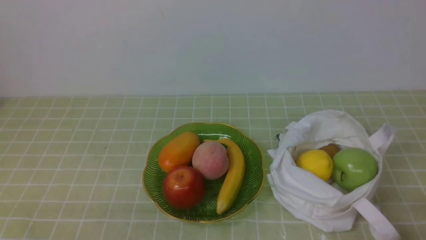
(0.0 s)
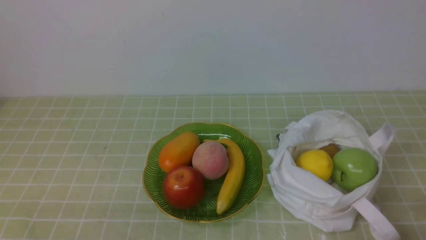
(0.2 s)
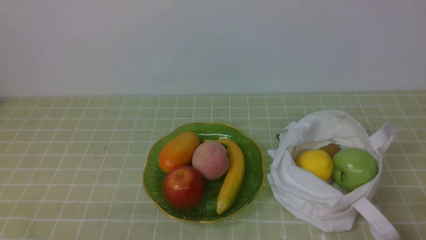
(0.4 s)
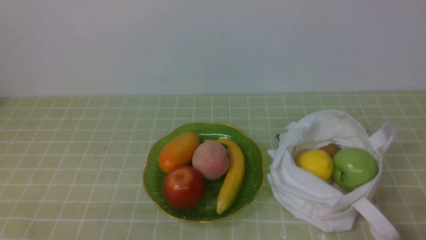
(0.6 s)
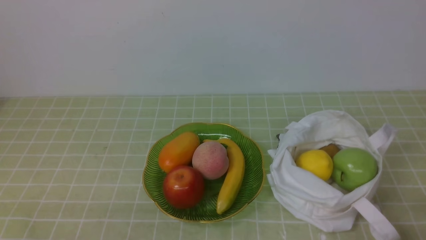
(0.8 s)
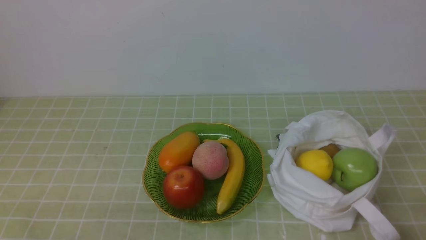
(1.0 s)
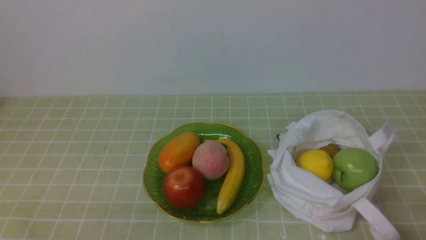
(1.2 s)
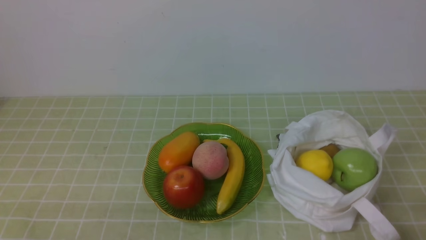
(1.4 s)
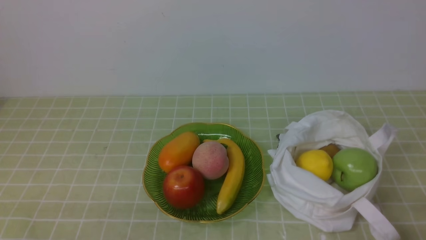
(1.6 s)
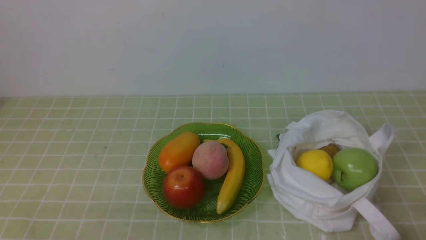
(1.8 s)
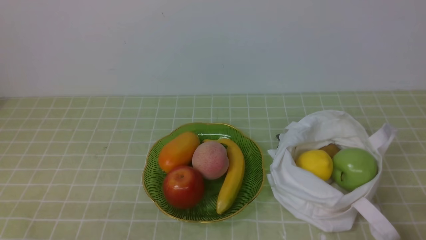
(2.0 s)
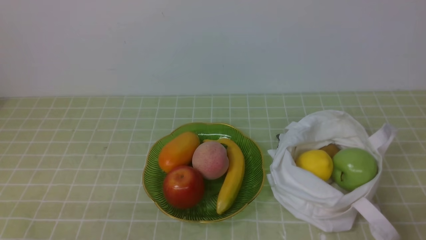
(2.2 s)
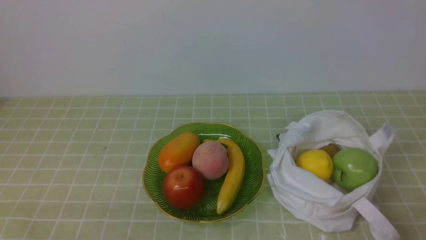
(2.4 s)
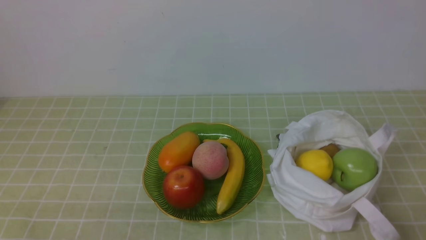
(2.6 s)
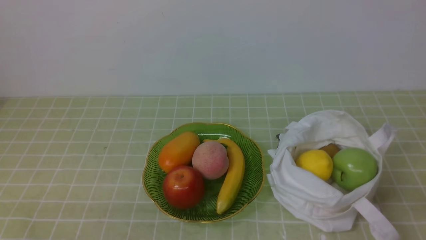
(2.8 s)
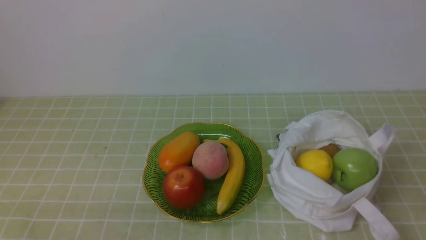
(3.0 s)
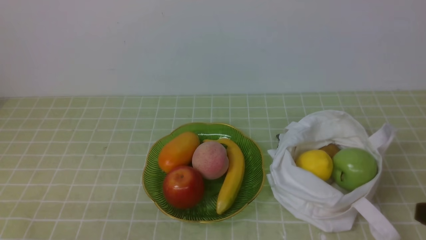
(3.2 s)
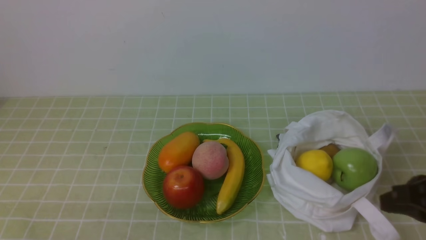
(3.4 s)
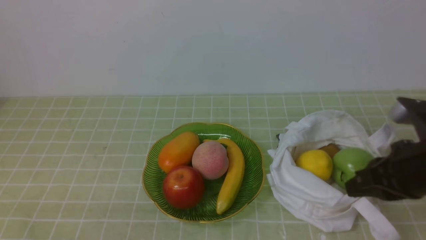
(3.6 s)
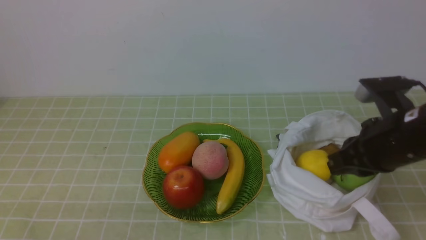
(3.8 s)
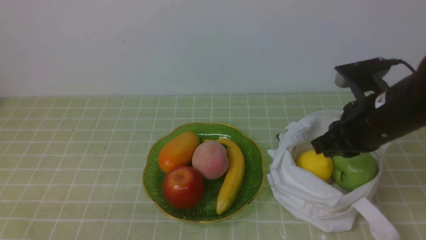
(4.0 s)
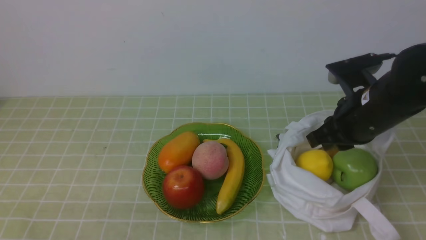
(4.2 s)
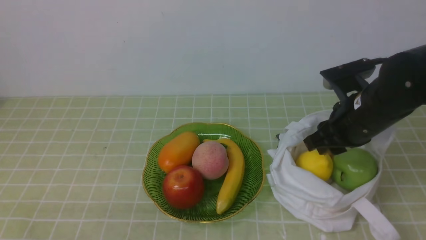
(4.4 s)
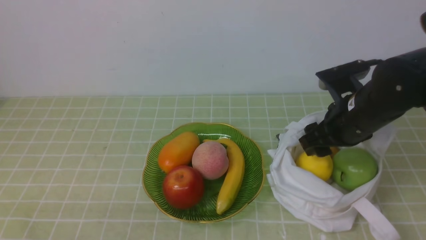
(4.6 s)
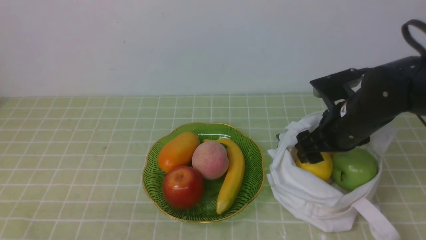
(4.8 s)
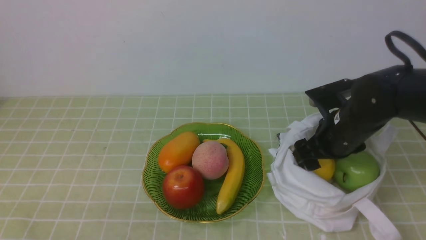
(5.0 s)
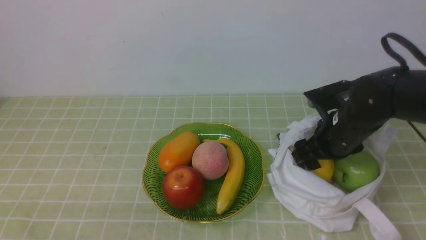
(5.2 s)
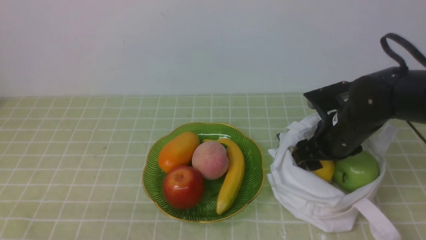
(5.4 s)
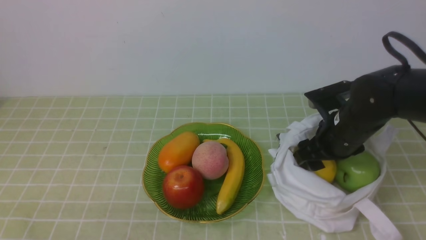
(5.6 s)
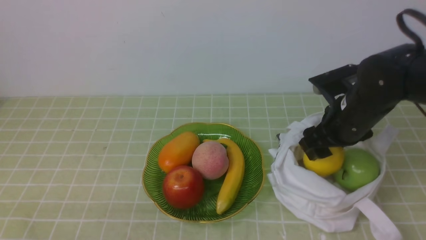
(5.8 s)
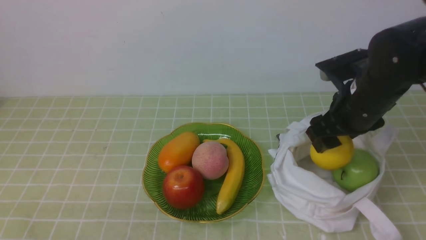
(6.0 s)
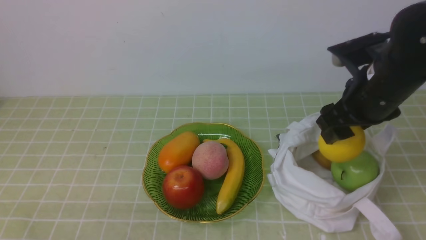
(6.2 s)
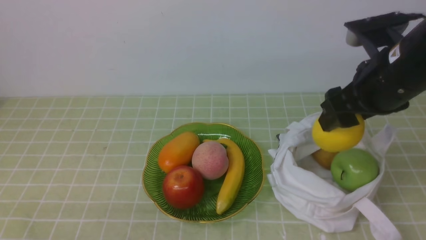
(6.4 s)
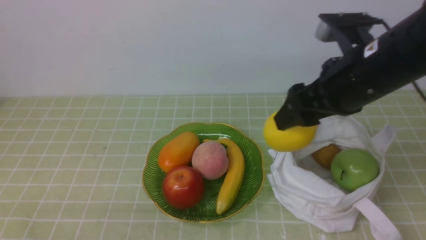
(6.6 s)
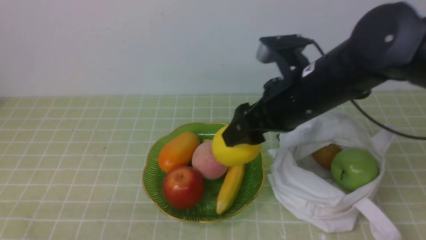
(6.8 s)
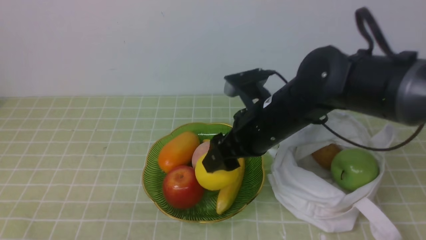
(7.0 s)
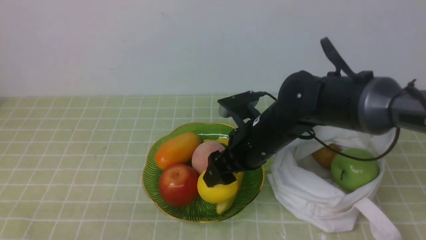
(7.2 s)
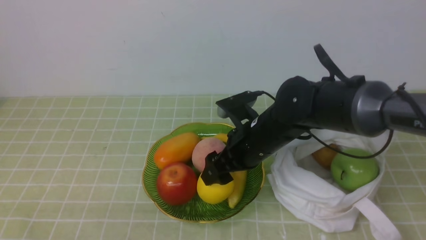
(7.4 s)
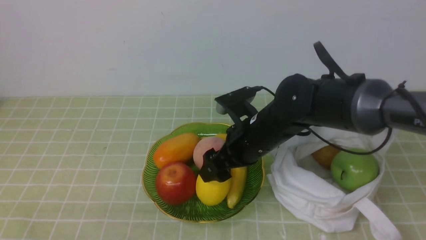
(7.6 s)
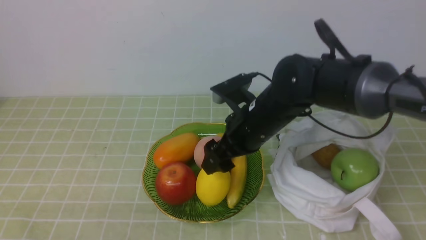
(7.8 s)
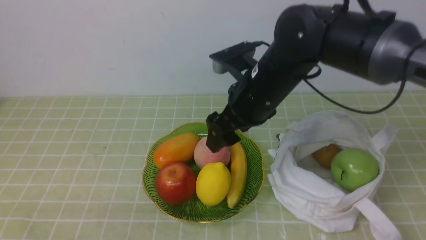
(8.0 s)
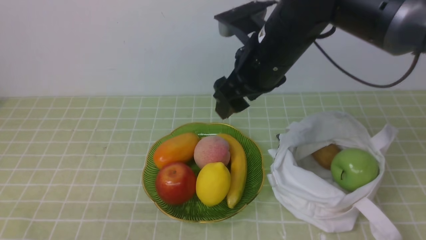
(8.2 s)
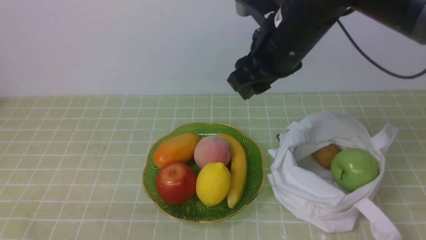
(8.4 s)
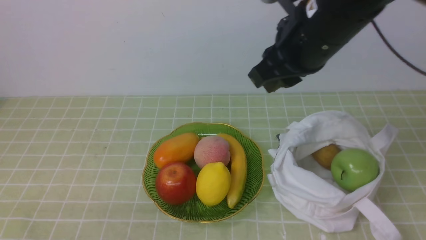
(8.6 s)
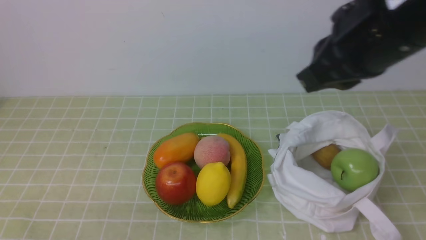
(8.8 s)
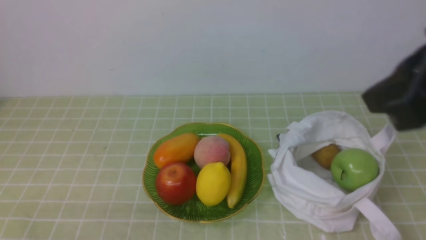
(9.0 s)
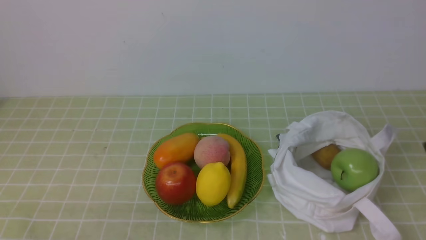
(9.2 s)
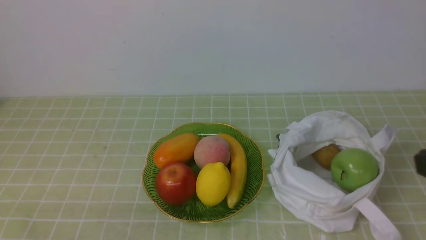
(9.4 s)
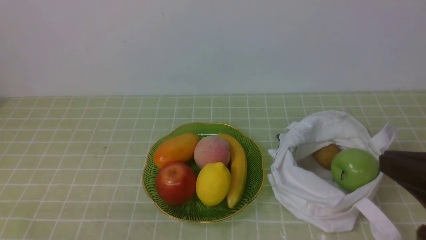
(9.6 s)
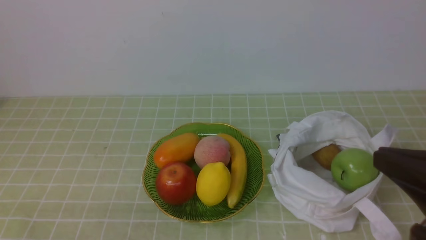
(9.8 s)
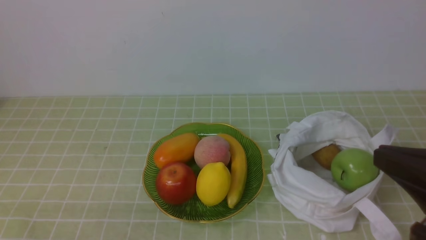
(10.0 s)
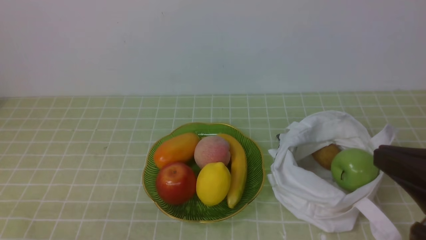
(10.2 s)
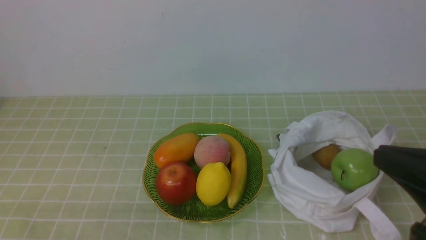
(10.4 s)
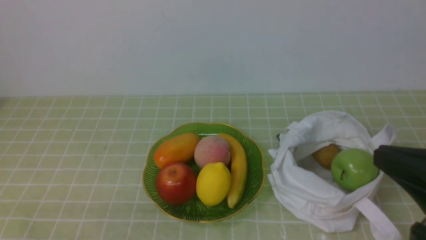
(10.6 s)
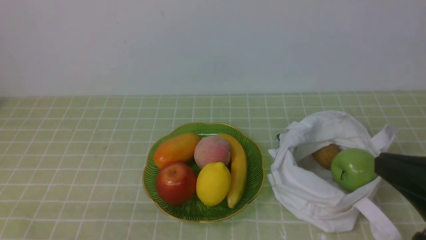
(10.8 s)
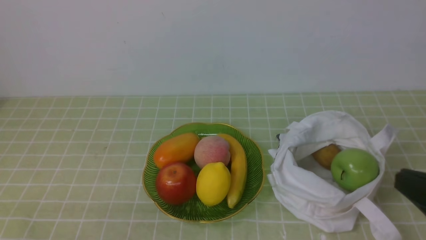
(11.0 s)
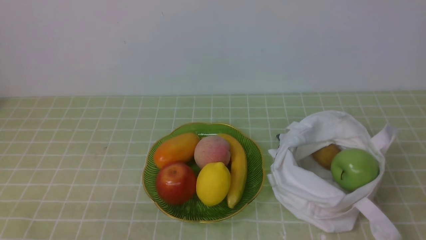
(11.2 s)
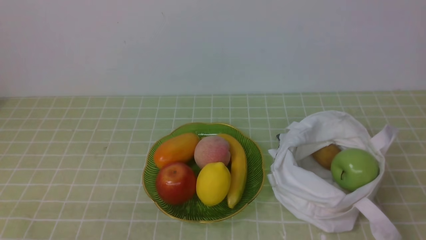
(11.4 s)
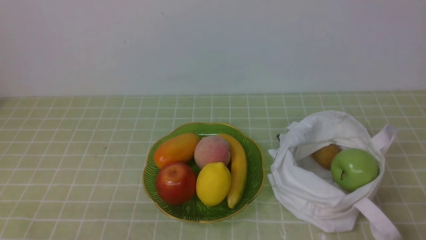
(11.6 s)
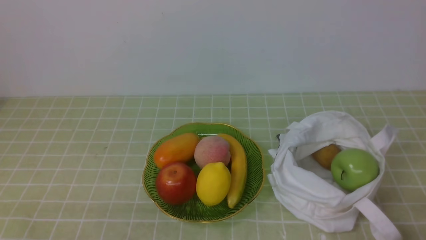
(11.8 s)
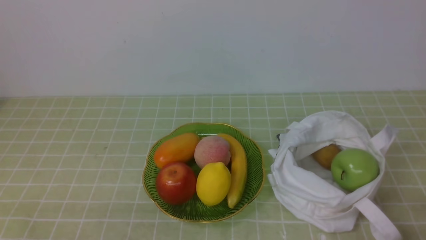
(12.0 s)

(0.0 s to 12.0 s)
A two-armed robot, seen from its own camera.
Step, 0.0 s - 5.6 s: use the right arm to grab a lemon from the bag.
Step, 5.8 s - 7.6 s: use the right arm to put the lemon into the empty plate on the left.
3.0 s - 4.4 s: The right gripper heads forward, covering roughly 25 cm.
4.4 s - 6.0 s: The right gripper opens.
6.0 s - 7.6 s: The right gripper moves to the left, roughly 15 cm.
7.6 s - 9.0 s: The right gripper is displaced upward, backward and to the right by some 30 cm, and closes.
9.0 s - 10.4 s: The right gripper travels downward, backward and to the right by about 15 cm.
10.4 s - 12.0 s: The right gripper is displaced downward and to the right by some 15 cm.

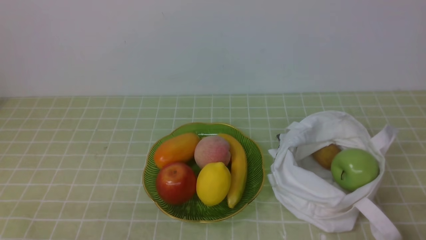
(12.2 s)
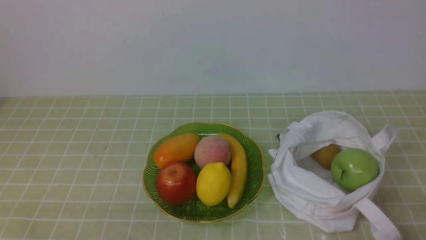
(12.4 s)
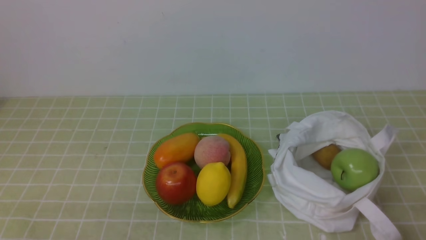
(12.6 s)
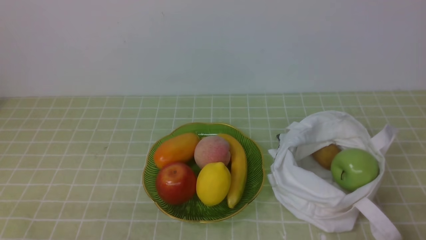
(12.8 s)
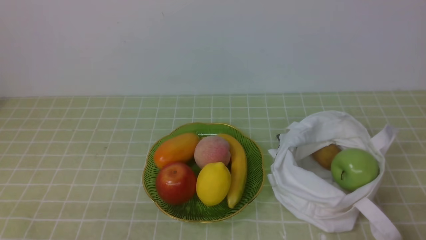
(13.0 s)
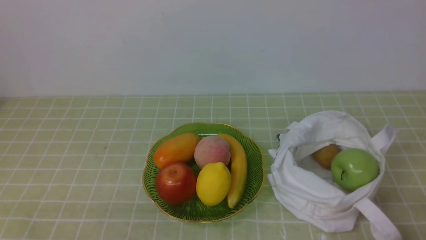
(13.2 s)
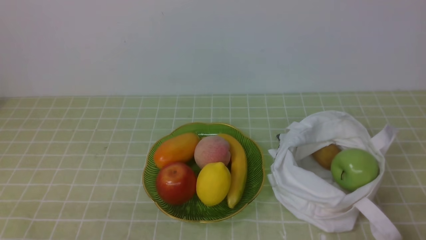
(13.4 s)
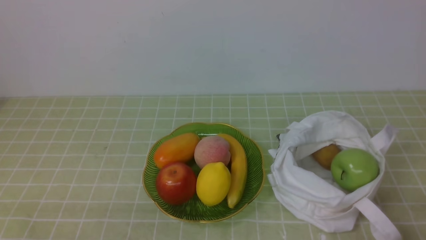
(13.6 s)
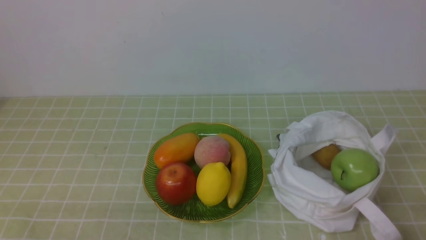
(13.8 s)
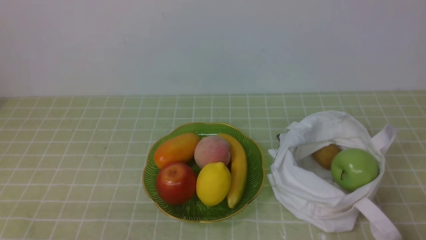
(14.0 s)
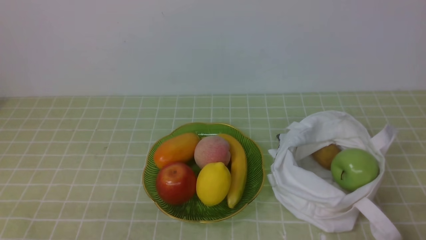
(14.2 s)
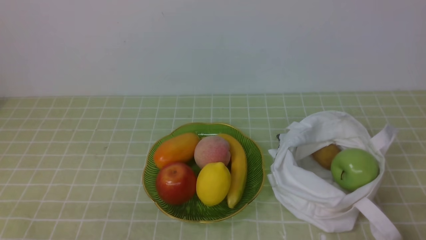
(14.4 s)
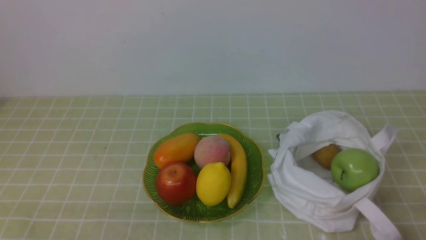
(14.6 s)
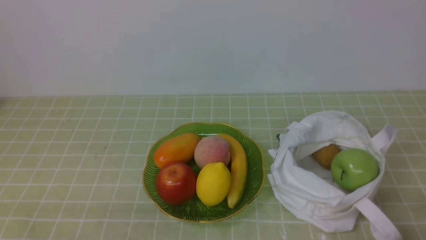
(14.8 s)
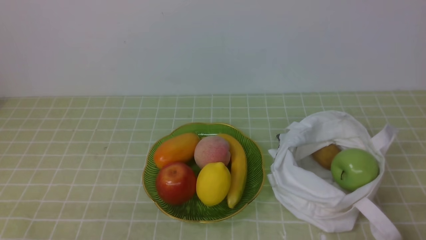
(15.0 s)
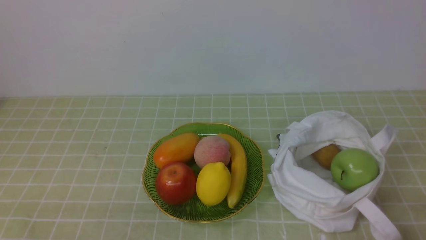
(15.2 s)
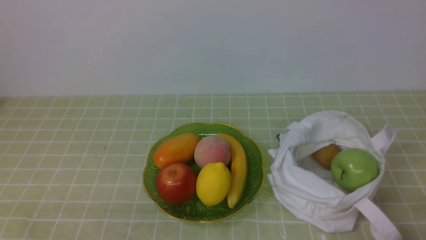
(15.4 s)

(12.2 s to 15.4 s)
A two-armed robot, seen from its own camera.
12.2 s - 15.4 s: Neither gripper changes place.
